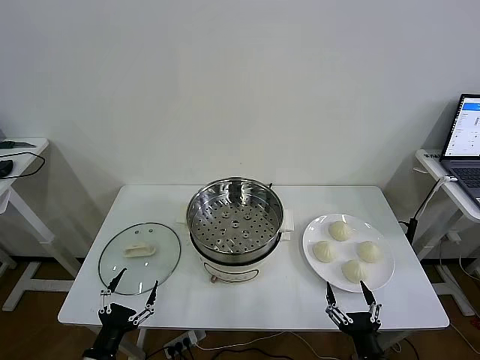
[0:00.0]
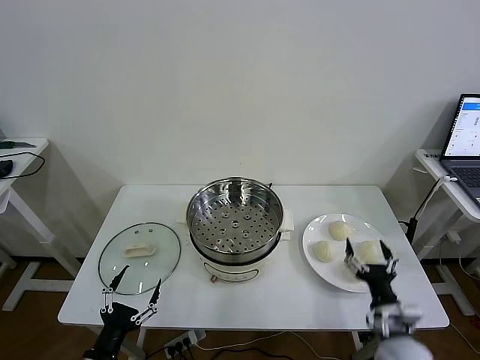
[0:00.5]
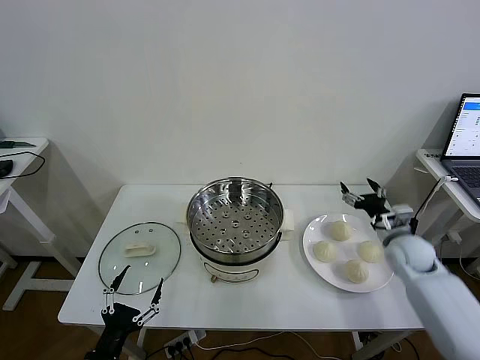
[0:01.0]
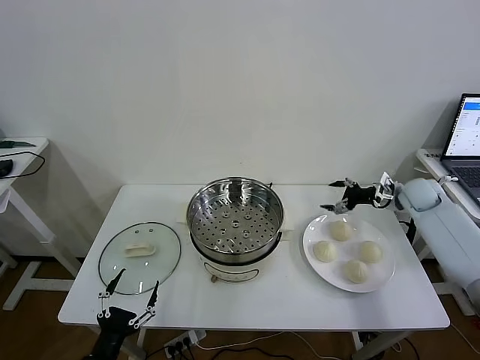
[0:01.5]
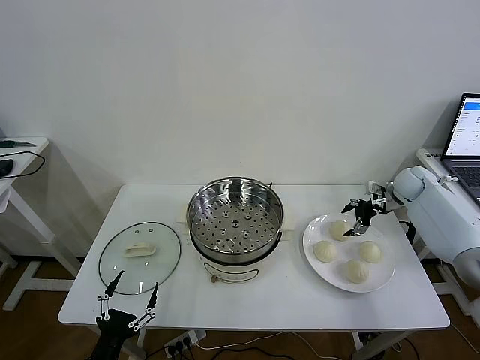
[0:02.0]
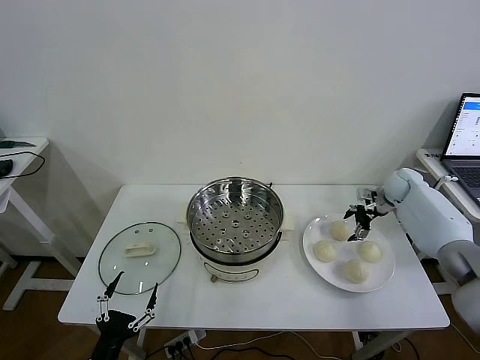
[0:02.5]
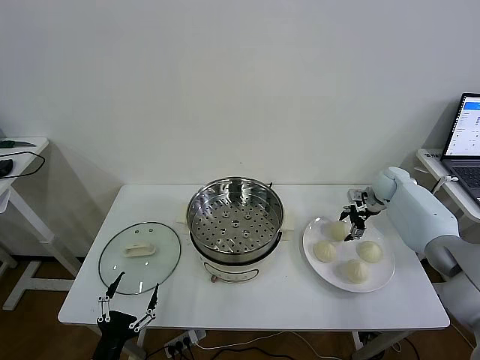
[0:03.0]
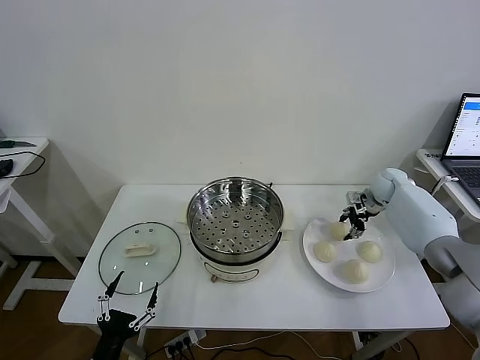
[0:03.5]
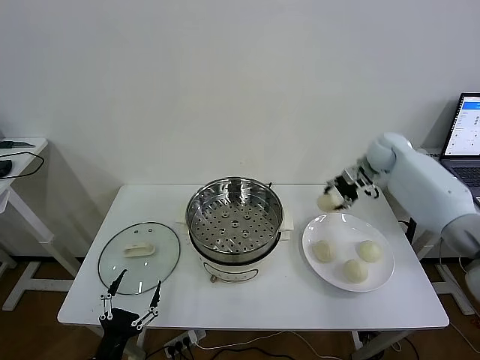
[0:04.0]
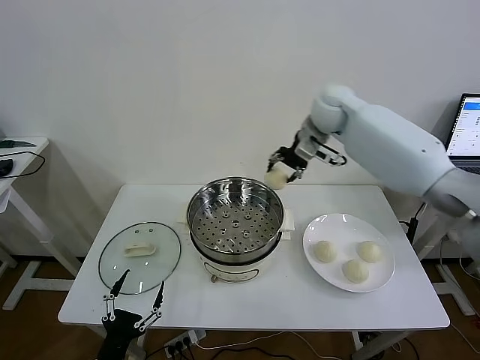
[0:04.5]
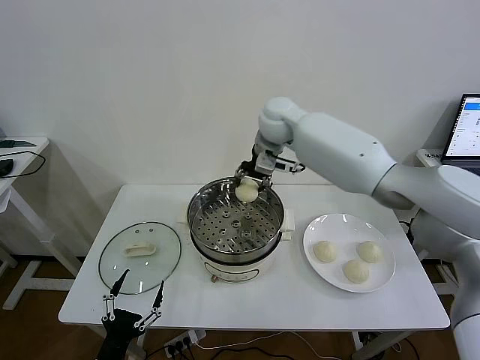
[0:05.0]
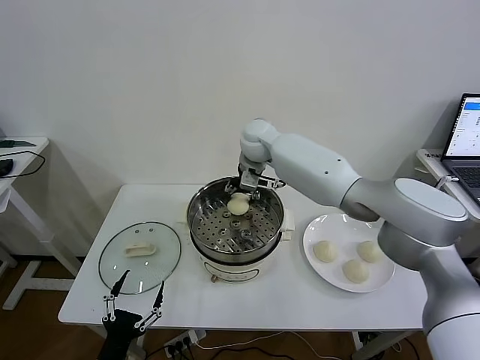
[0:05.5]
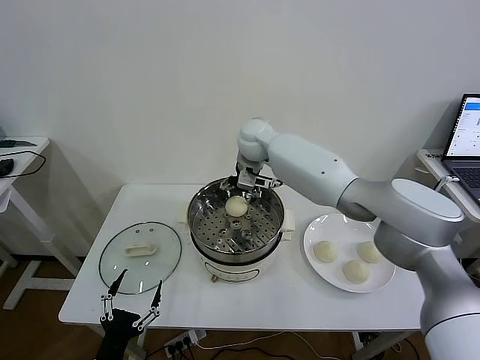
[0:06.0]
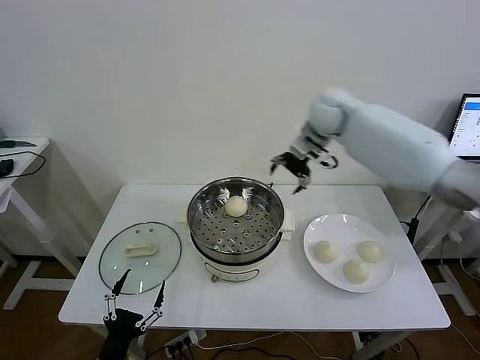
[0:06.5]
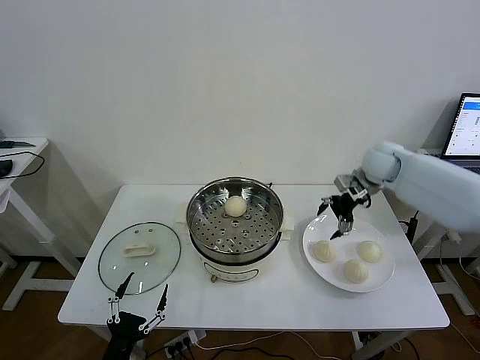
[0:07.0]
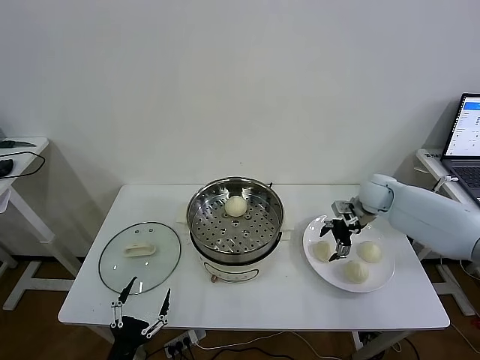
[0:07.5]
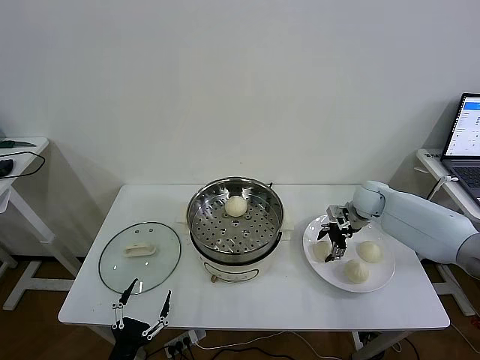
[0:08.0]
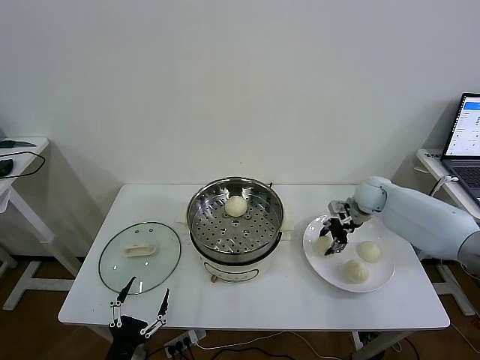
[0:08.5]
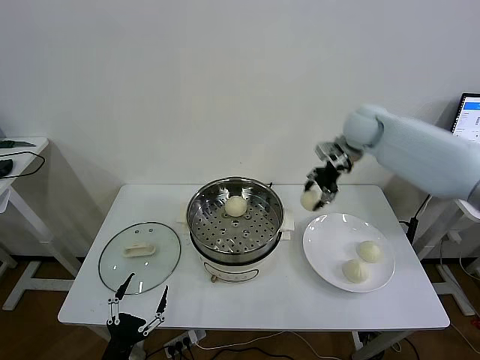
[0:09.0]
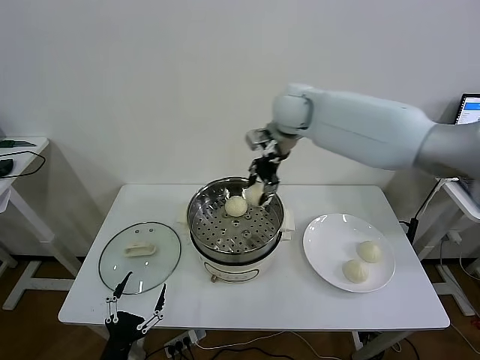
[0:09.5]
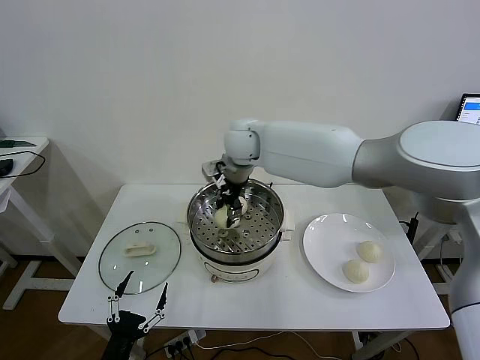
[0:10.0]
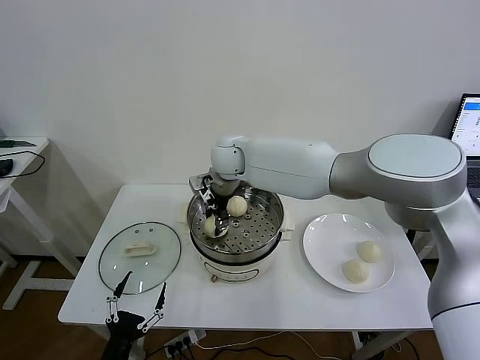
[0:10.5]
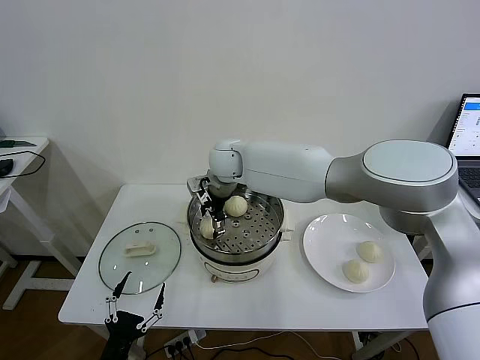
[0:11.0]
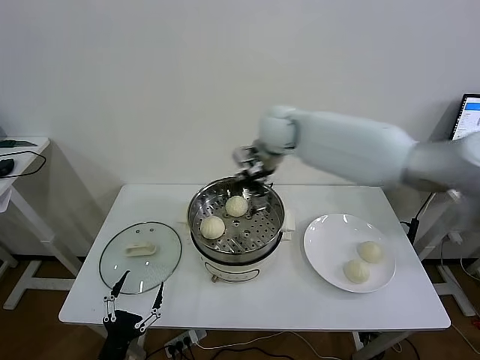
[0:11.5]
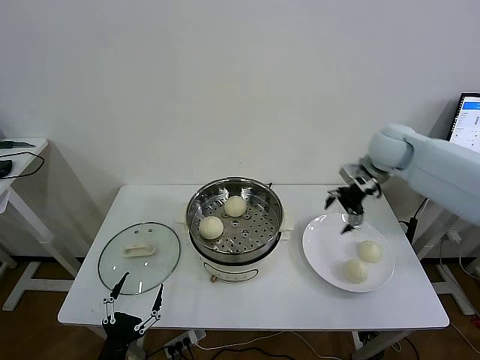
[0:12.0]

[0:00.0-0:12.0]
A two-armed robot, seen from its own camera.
Task of the whole recording: take steamed baozi put them in steamer then cover it.
Step, 0:00.0 to 0:03.0: Grasp the baozi in the plate with right gripper.
Step, 0:03.5 to 0:05.5: Place the baozi on the steamer with right gripper.
Step, 0:06.0 to 0:08.0: Grasp the baozi in the plate with right gripper.
Step, 0:08.5 to 0:10.5: Place the baozi on the steamer with right gripper.
0:02.0 to 0:04.0: The right gripper is displaced upward and to the left by approximately 20 cm, and closes.
0:04.0 to 0:06.0: The right gripper travels to the left by roughly 30 cm, and opens up.
0:06.0 to 0:08.0: The right gripper shifts roughly 35 cm to the right and downward, and closes its fingers.
0:08.0 to 0:10.0: The right gripper moves to the left and upward, about 40 cm, and closes its fingers.
0:10.0 to 0:12.0: The right gripper heads to the right, covering roughly 35 cm, and opens.

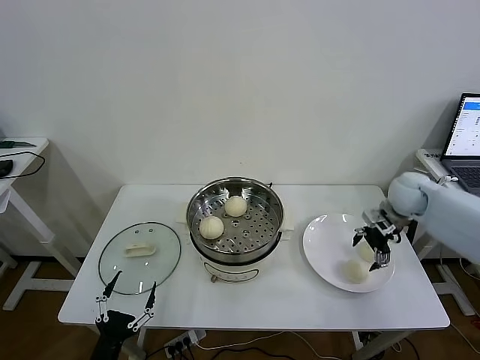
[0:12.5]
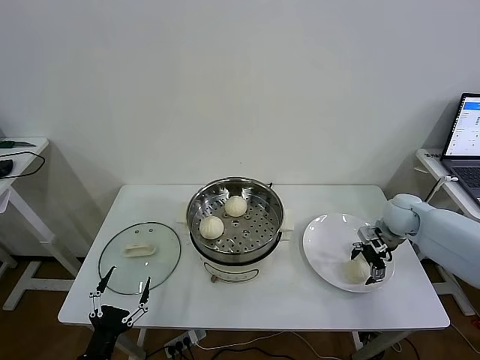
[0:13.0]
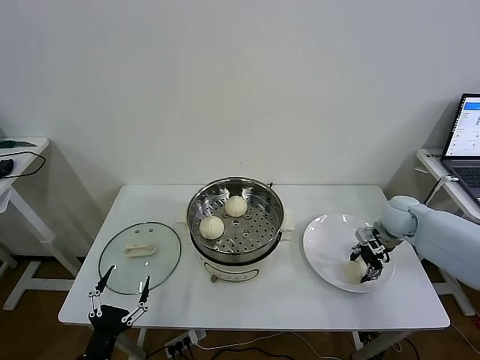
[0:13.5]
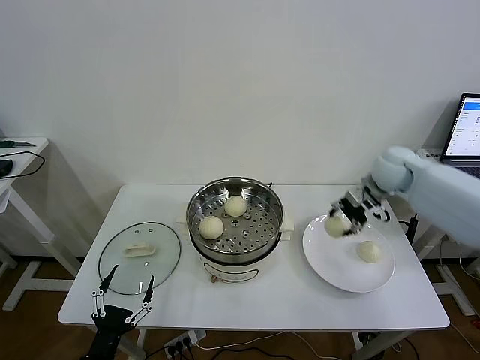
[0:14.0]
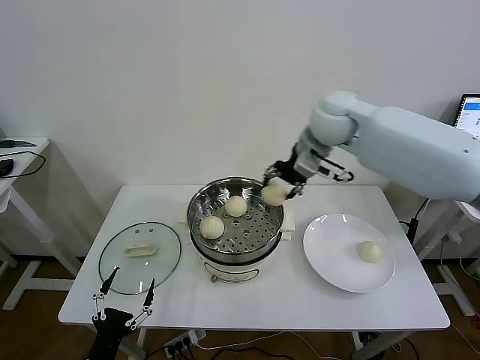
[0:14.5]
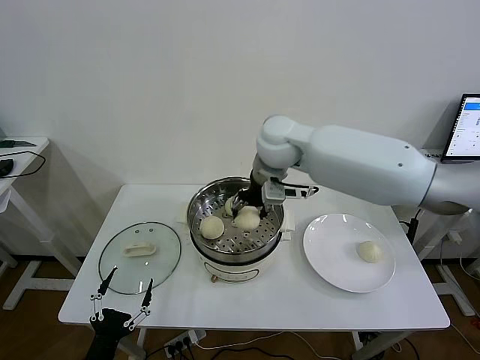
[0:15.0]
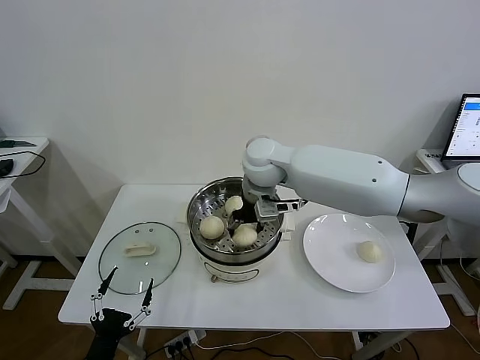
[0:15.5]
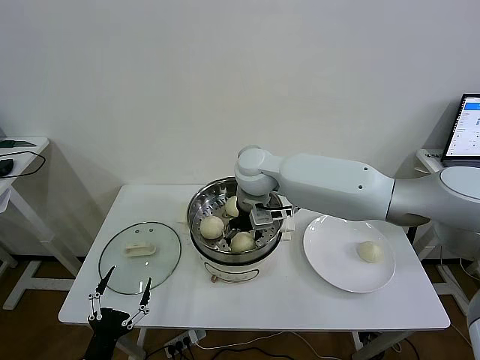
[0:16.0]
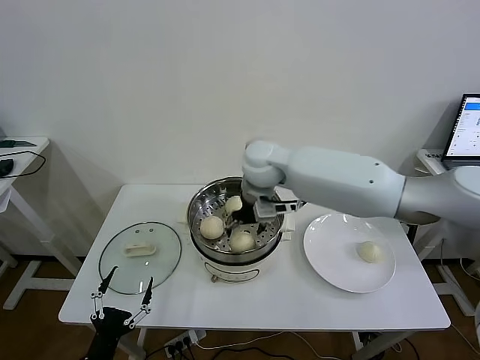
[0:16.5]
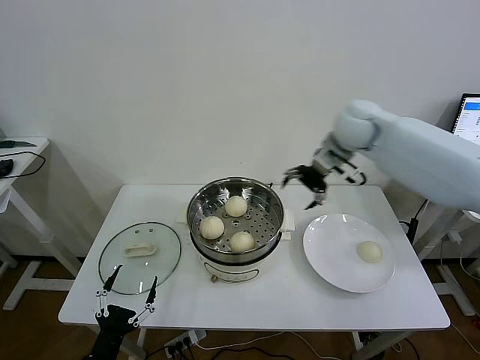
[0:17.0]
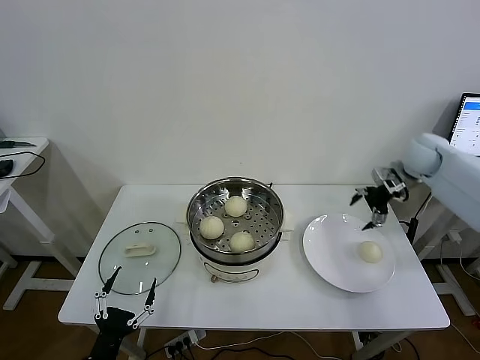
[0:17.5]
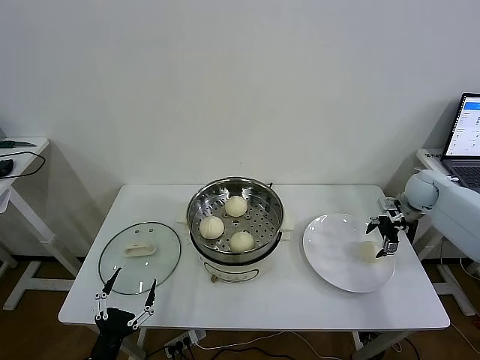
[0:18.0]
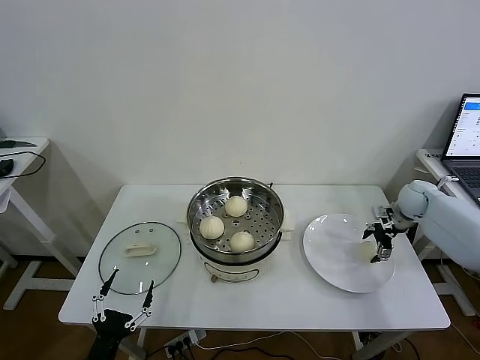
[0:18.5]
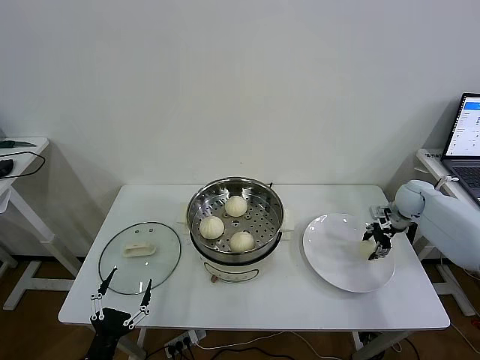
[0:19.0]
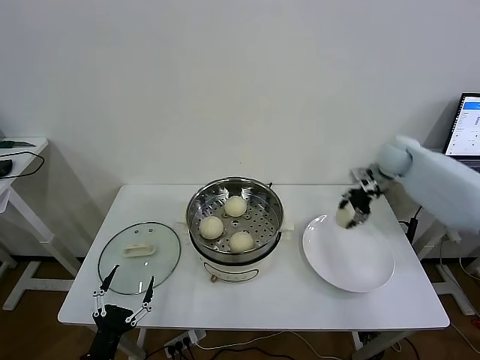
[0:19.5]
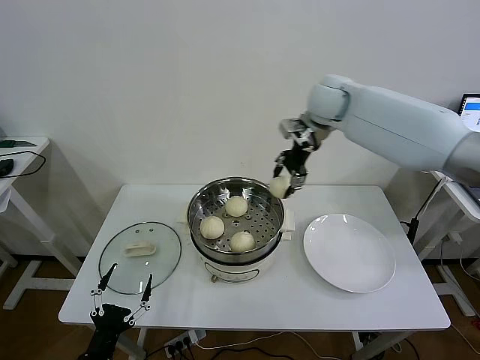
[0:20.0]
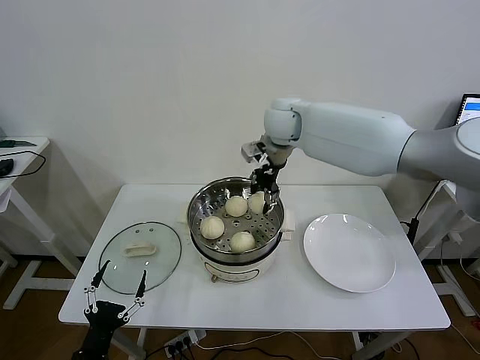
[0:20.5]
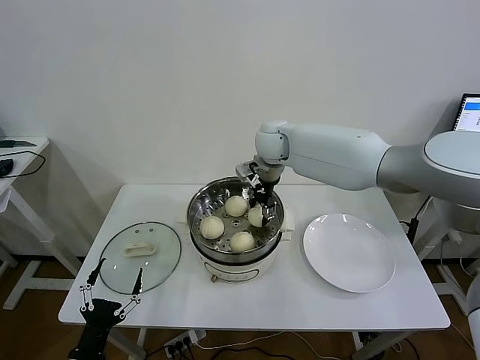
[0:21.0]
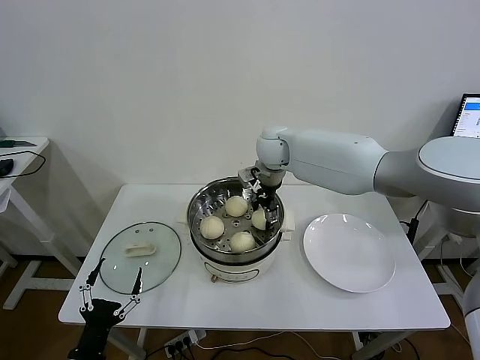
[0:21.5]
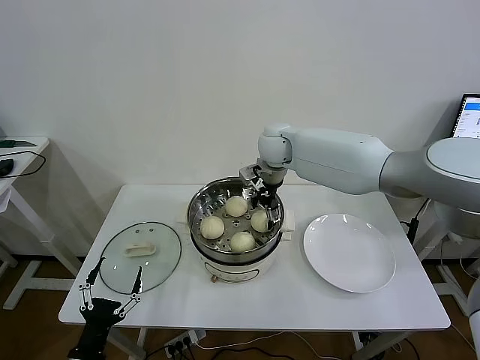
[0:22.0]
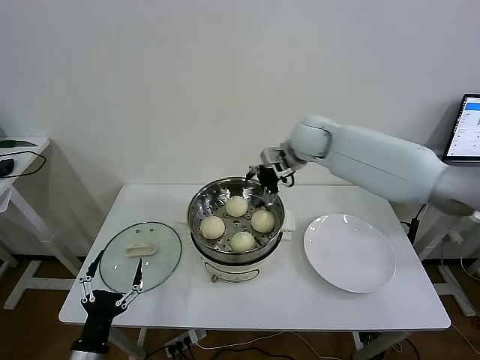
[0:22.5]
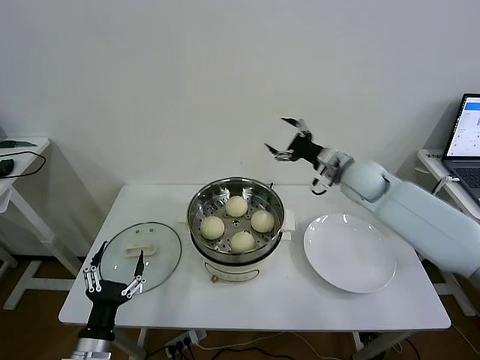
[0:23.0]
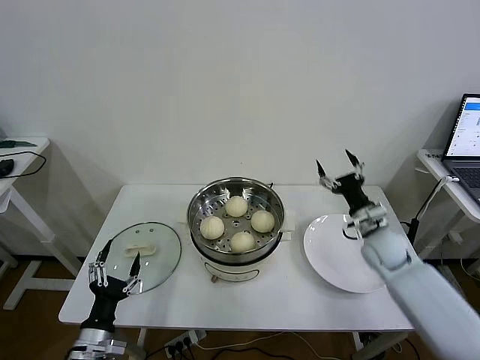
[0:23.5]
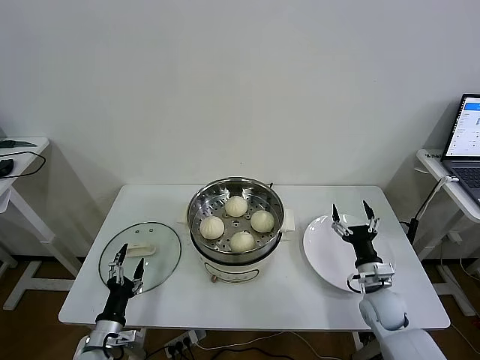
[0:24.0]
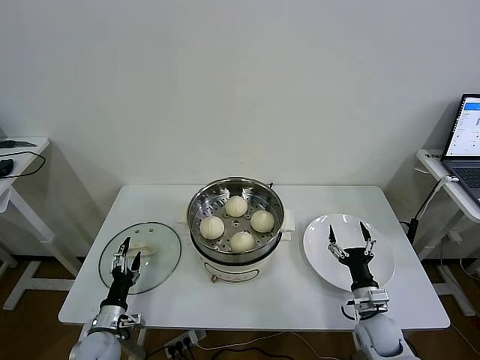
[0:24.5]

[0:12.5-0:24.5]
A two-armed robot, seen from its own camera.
Task of the whole recording: take steamed baozi put them in steamer then cover it.
Step, 0:14.0 to 0:16.0: Place the baozi on the steamer with right gripper.
Step, 0:16.5 to 0:18.5: Grasp the baozi in the plate with right gripper.
Step, 0:19.5 to 0:21.5: Place the baozi on the steamer with right gripper.
0:12.5 to 0:14.5: The right gripper shifts about 30 cm to the left and upward, and closes its fingers.
0:14.5 to 0:16.5: The right gripper goes some 15 cm to the left and downward, and opens up.
0:16.5 to 0:18.5: The right gripper is displaced to the right and downward by roughly 40 cm.
0:18.5 to 0:20.5: The right gripper shifts approximately 40 cm to the left and upward, and closes up.
0:20.5 to 0:22.5: The right gripper is displaced to the right by approximately 5 cm, and opens.
0:22.5 to 0:24.5: The left gripper goes about 15 cm forward and downward. The right gripper is displaced downward, backward and to the right by roughly 50 cm.

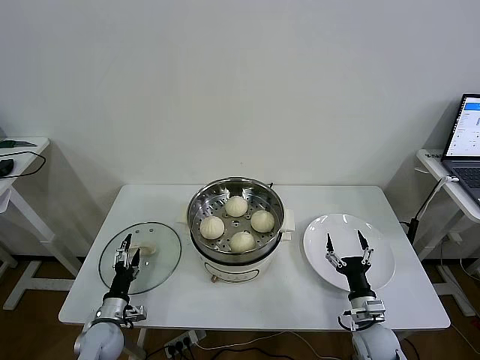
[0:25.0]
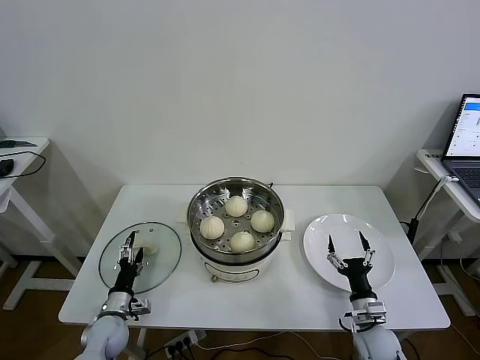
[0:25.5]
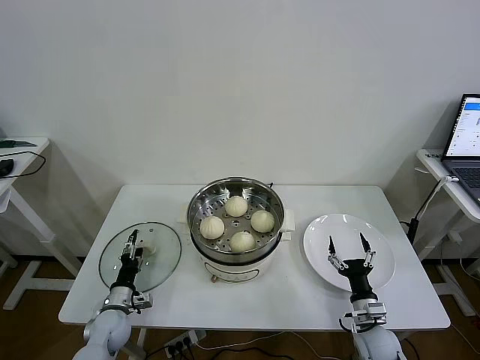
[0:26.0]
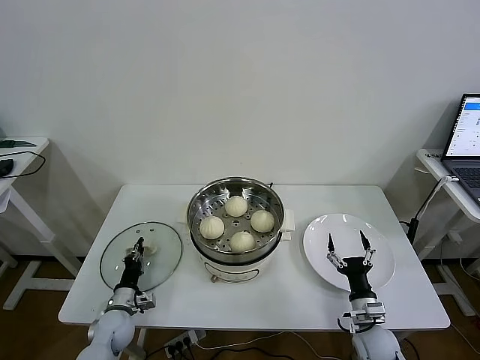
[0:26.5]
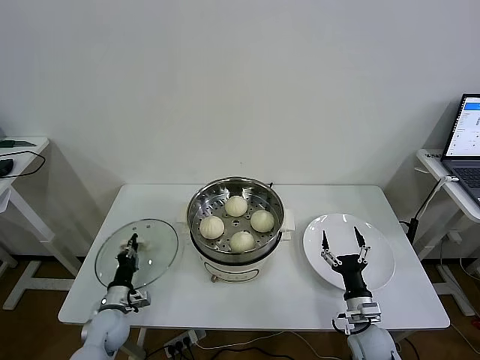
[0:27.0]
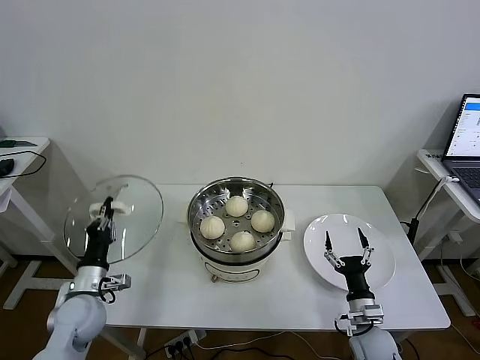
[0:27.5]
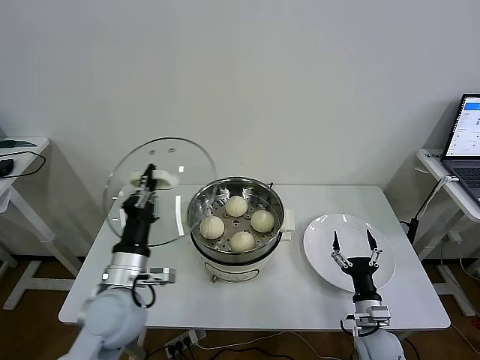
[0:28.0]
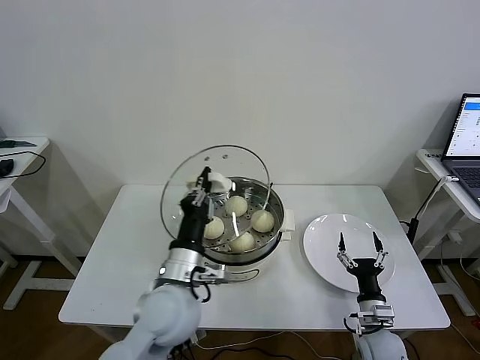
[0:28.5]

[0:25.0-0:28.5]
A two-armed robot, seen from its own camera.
Task of the whole recording: take steamed baozi put them in steamer then cover it.
0:25.0 to 0:27.0: The left gripper closes up.
0:27.0 to 0:28.5: The left gripper shifts roughly 35 cm upward and to the right.
